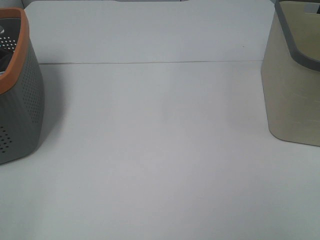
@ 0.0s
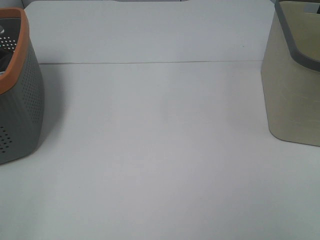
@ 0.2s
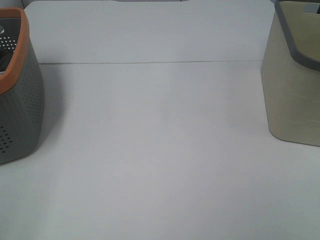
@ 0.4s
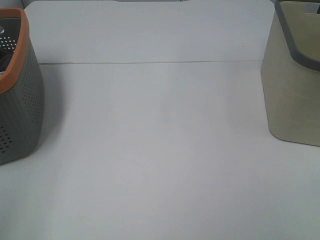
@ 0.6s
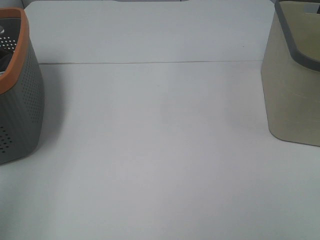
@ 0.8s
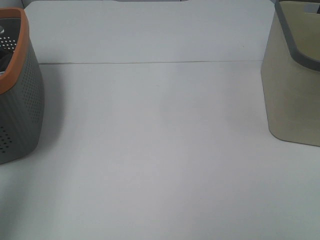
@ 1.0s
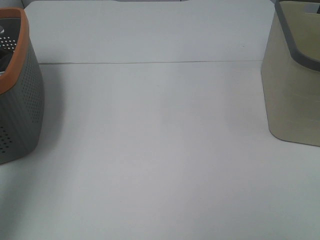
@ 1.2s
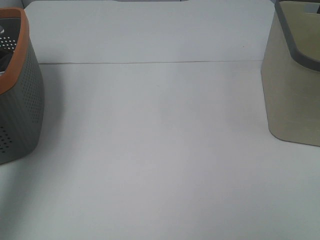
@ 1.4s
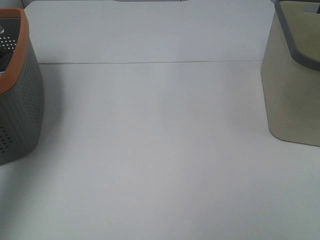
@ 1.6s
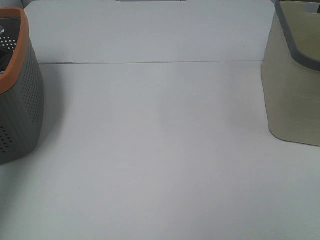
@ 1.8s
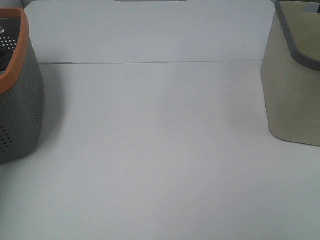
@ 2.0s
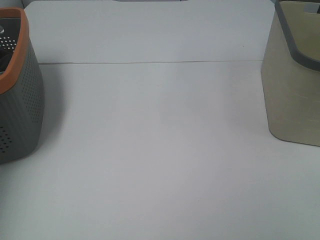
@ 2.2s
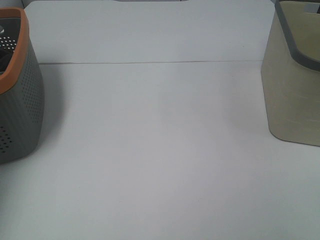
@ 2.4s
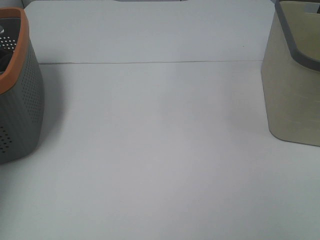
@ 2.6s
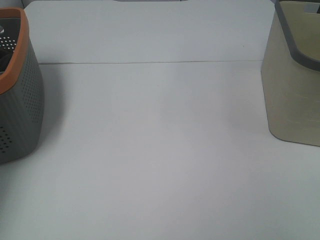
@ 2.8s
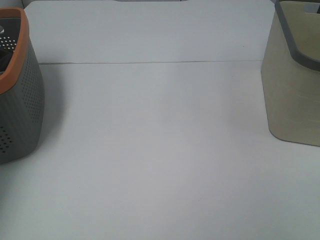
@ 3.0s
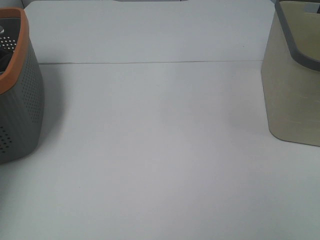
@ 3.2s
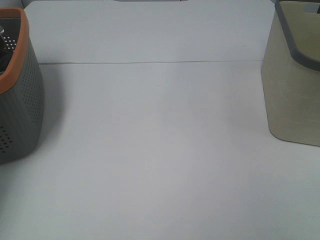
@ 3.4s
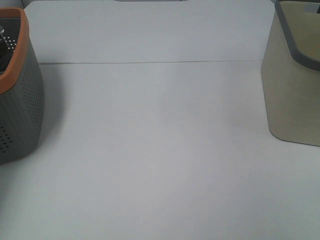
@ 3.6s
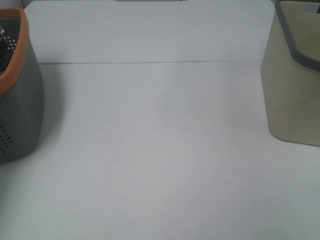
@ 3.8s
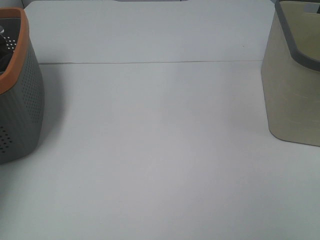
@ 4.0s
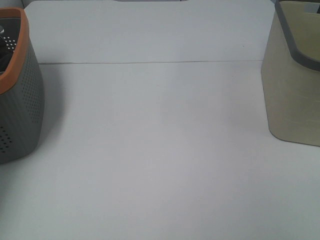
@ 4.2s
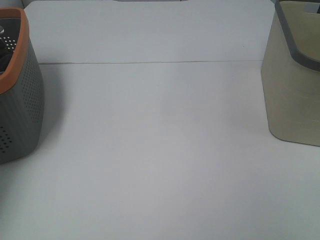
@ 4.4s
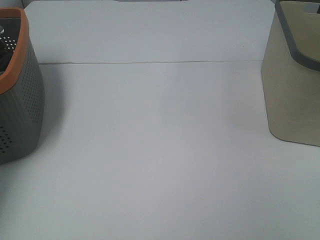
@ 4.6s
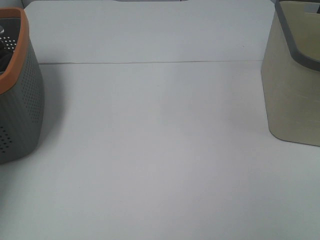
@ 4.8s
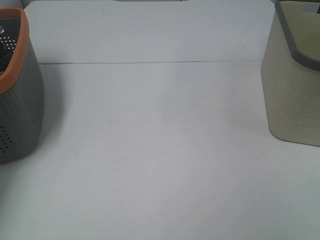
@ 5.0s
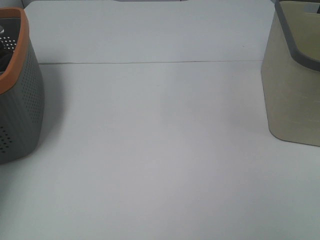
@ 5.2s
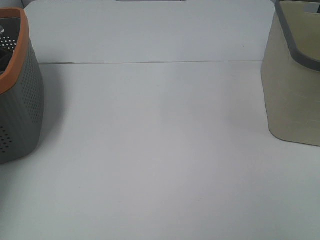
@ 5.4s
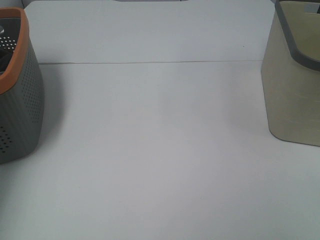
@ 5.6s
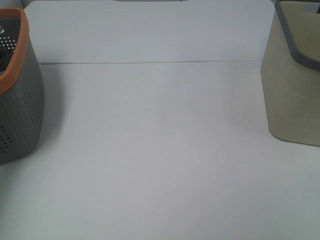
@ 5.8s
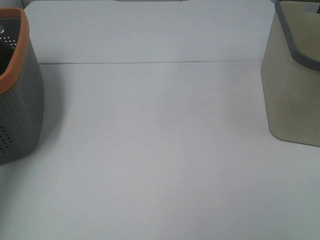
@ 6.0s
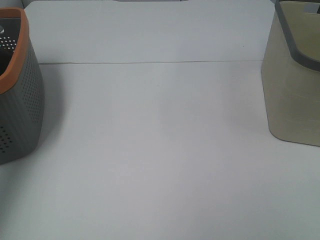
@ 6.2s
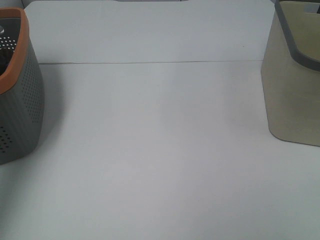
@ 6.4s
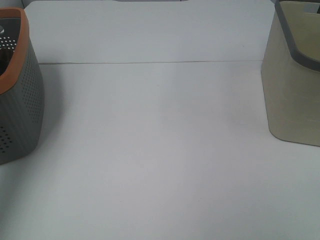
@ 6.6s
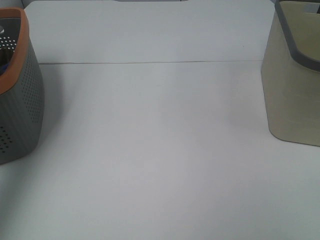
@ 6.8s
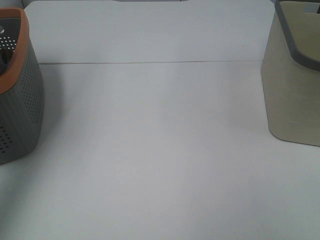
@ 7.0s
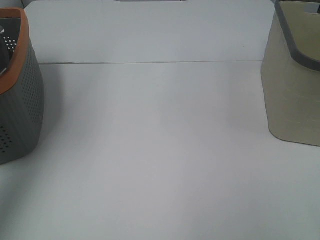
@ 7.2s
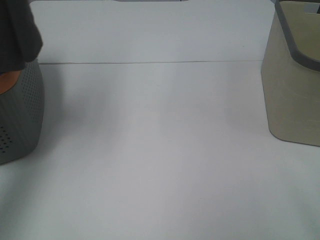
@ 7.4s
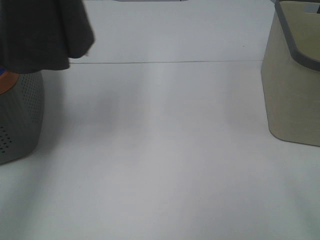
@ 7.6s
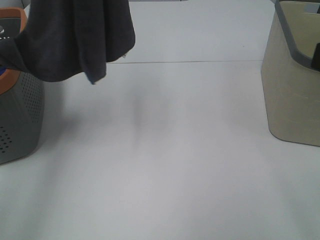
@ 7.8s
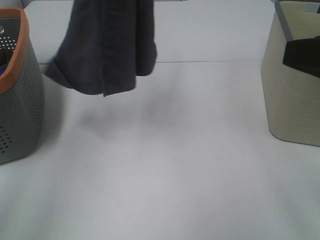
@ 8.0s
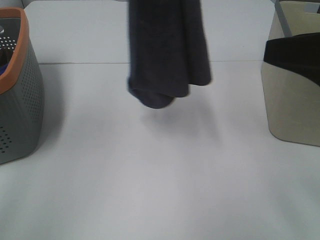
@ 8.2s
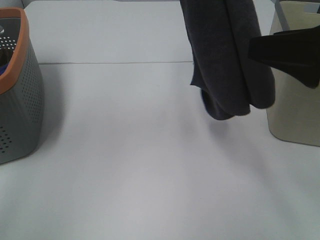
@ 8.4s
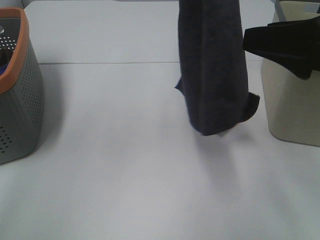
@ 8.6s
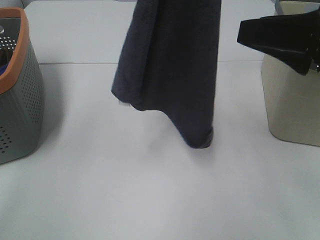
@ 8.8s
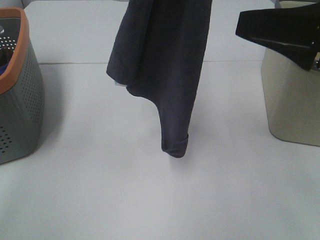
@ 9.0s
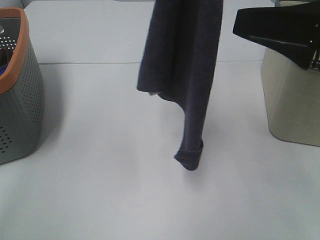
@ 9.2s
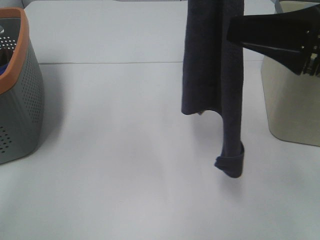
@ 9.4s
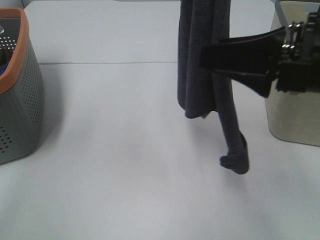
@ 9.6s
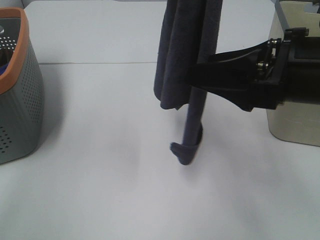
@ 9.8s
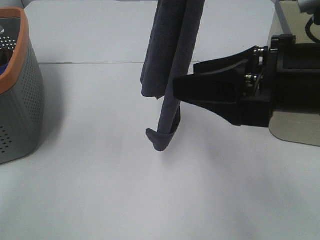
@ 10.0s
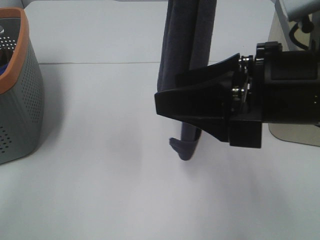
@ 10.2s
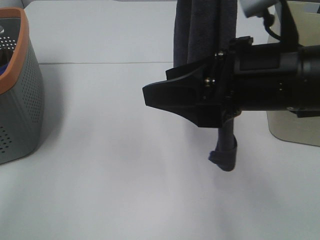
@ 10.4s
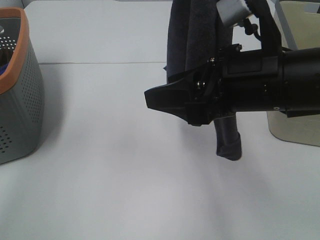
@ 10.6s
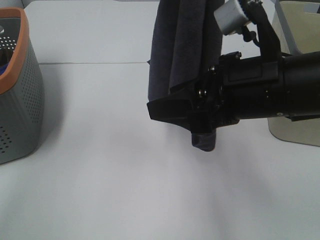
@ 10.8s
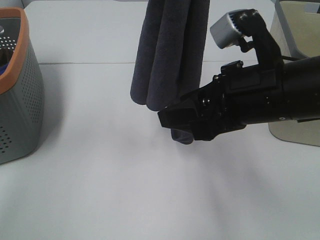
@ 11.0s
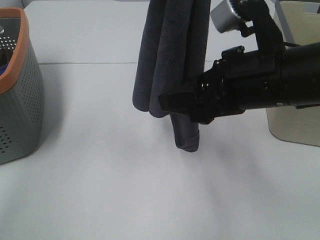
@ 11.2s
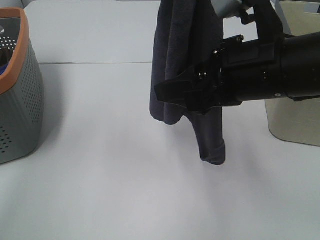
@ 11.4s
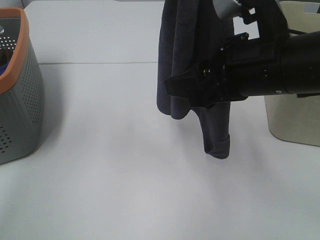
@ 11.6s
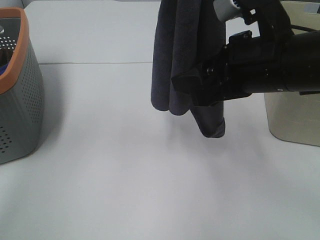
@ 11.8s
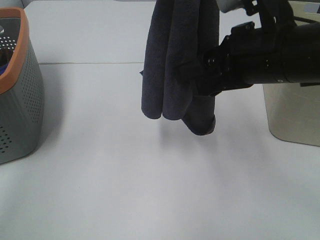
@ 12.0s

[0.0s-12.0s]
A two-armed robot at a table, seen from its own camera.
Task of the whole recording: Remove the towel and place it.
0.0s to 1.6s: The left gripper heads forward and upward, covering about 30 cm.
1.6s to 3.0s: The left gripper travels downward and forward by some 25 cm.
6.0s to 7.6s: The left gripper shifts approximately 25 cm upward and to the right, while the right gripper goes some 10 cm forward.
7.6s to 9.0s: The right gripper moves forward, approximately 10 cm; the left gripper heads to the right, covering some 15 cm.
9.0s to 10.4s: The right gripper travels to the left by about 10 cm.

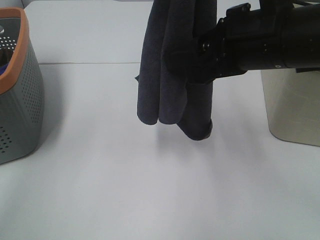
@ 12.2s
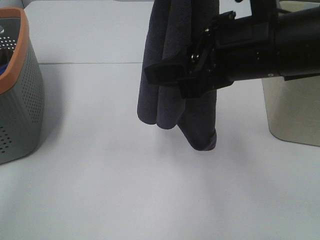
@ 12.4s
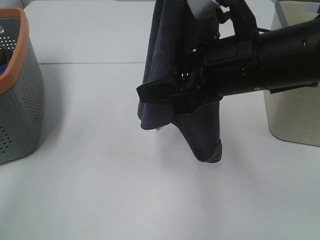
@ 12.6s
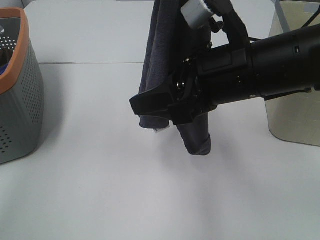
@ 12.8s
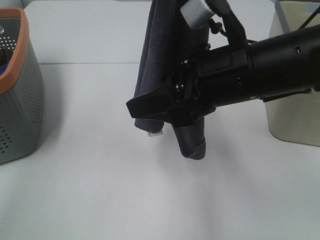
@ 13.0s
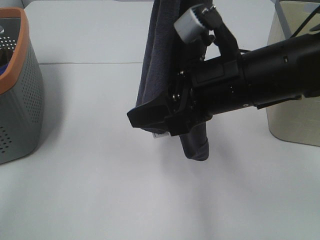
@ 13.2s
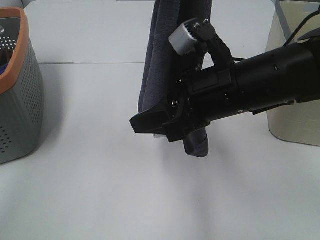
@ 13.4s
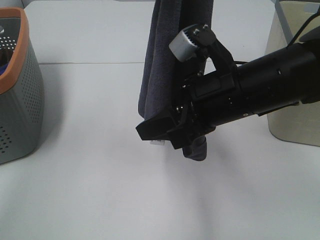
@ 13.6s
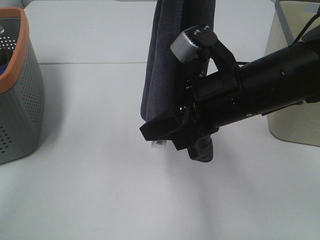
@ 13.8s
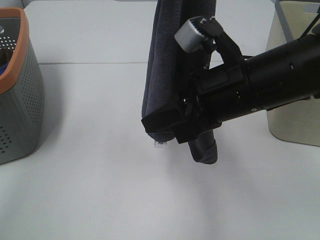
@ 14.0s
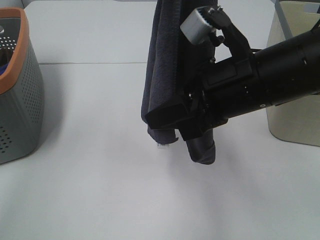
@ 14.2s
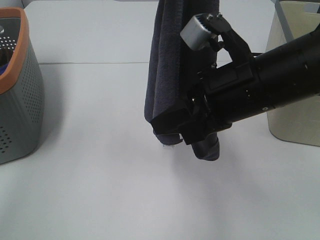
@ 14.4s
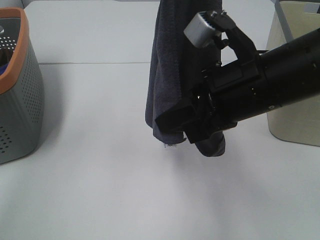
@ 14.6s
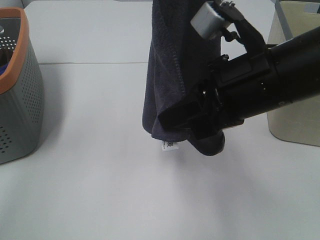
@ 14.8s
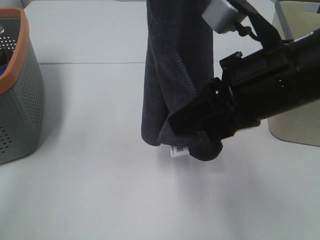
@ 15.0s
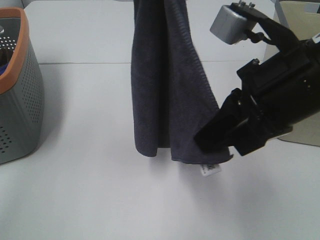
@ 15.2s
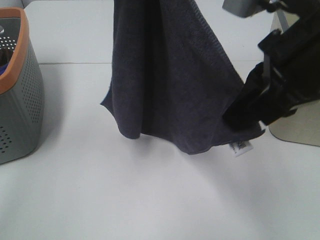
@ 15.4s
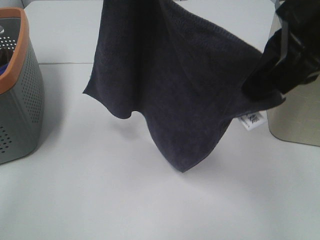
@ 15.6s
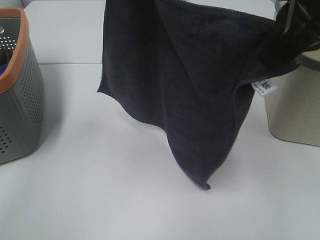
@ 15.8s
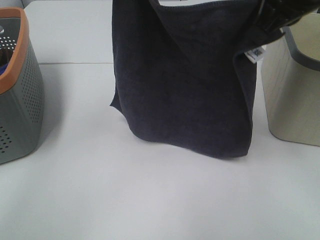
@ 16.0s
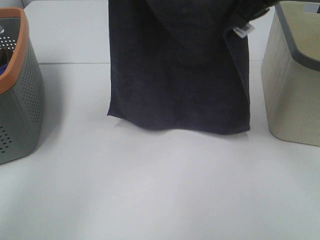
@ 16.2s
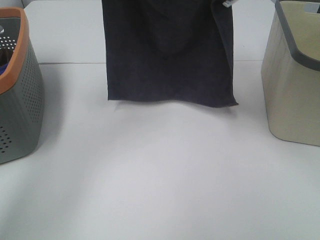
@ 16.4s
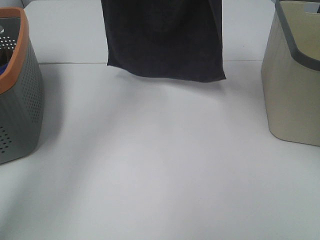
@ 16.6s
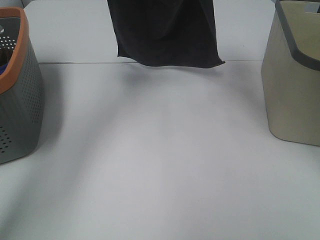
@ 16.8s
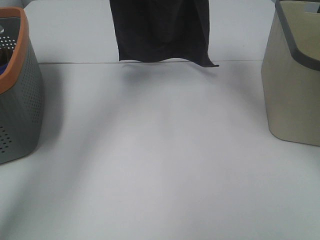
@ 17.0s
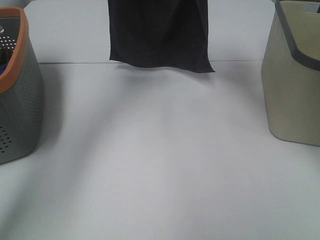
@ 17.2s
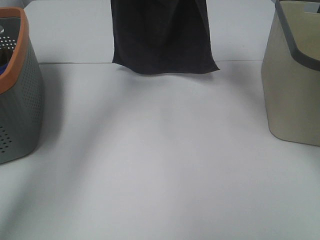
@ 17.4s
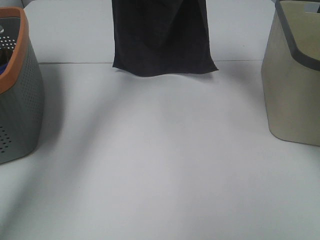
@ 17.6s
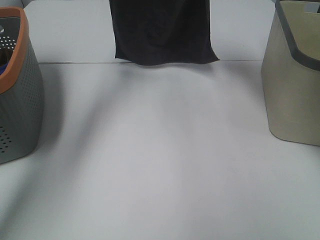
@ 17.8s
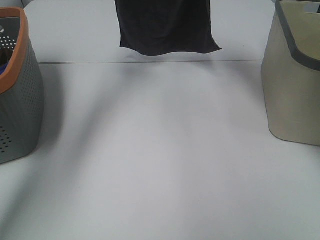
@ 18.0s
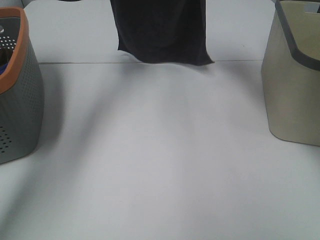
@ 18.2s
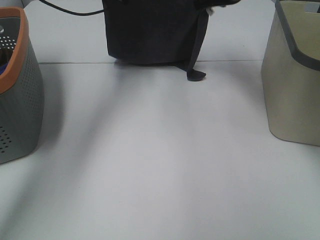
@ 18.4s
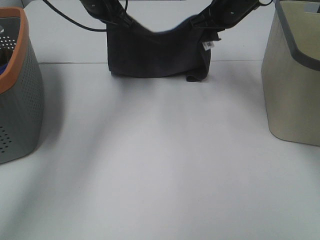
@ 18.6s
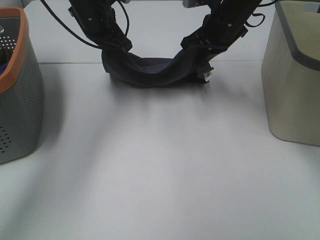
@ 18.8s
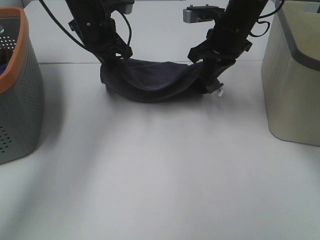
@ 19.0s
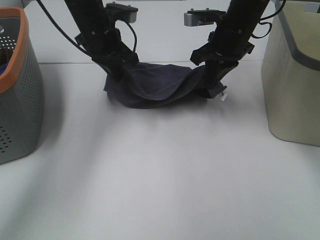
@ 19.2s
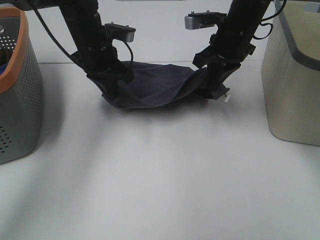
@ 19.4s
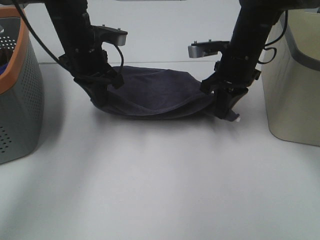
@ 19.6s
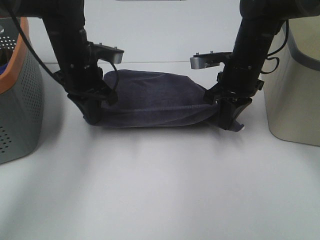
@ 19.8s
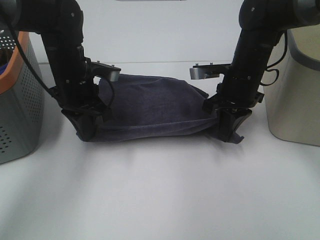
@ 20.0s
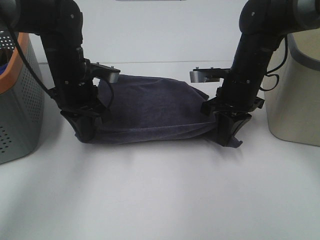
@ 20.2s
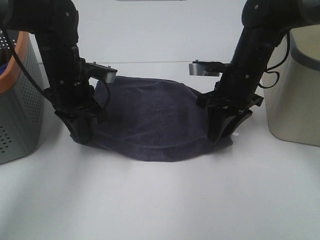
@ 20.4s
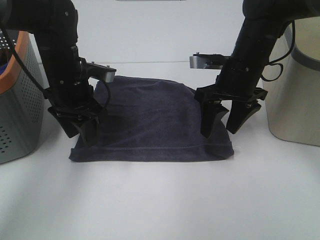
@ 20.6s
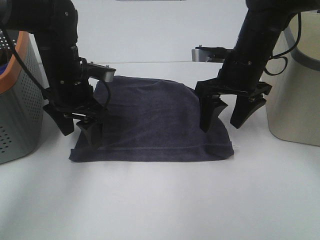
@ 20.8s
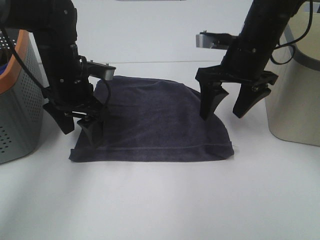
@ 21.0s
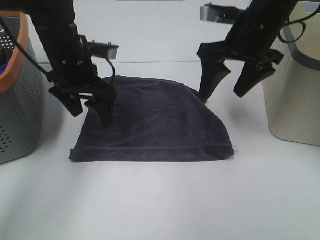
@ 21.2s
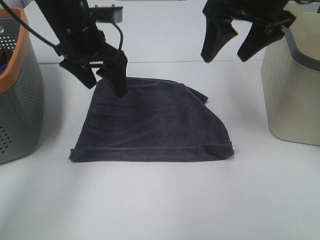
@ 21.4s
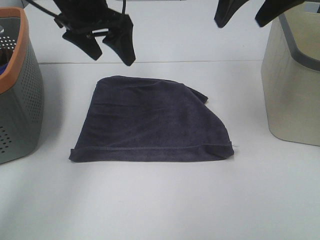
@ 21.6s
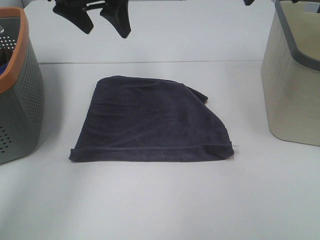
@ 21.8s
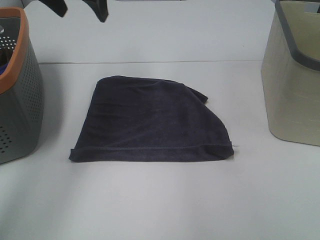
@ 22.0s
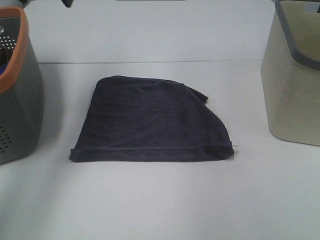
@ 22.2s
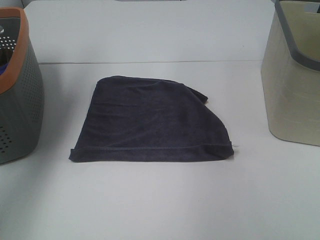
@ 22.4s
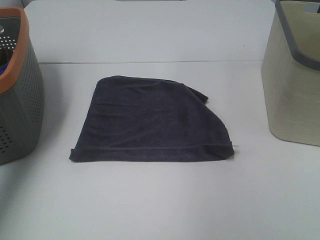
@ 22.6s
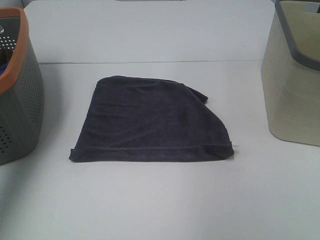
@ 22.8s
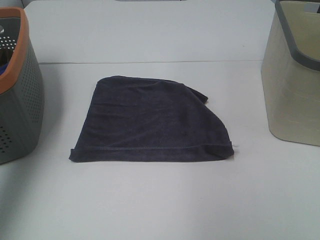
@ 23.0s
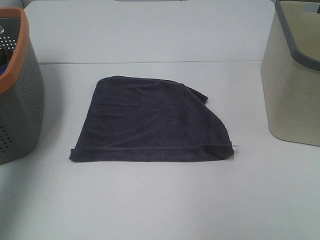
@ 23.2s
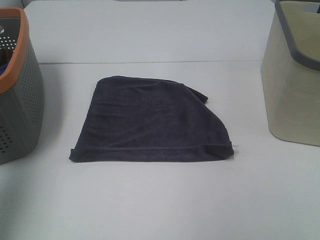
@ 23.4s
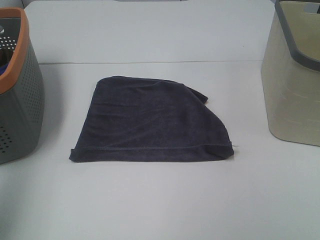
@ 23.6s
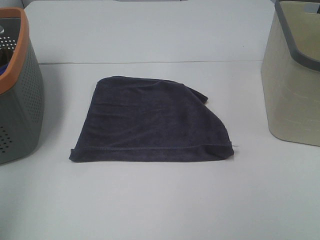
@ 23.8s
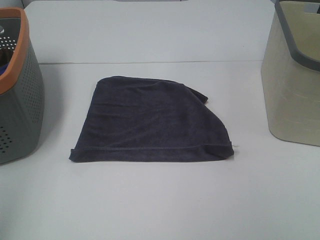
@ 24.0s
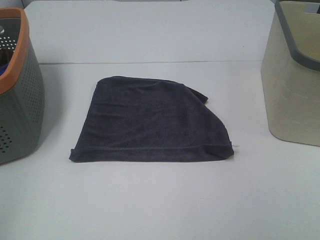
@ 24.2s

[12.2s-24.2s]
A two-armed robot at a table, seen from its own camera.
Task of the whole recording: Remove the towel and place it.
Step, 13.8s to 15.6s: Right hand: spread the grey towel flat on the table.
Step, 13.8s to 15.8s: Left hand: spread the grey towel flat on the table.
12.2s to 13.8s: The right gripper is displaced downward by some 5 cm.
13.8s to 15.2s: The right gripper travels upward by roughly 5 cm, and closes up.
15.2s to 16.6s: The left gripper shifts some 20 cm forward and downward. The right gripper travels forward by approximately 25 cm.
16.6s to 18.2s: The right gripper shifts approximately 10 cm forward and downward. Meanwhile the left gripper shifts roughly 10 cm downward and forward.
18.2s to 19.8s: The left gripper moves backward and downward, approximately 20 cm, while the right gripper goes about 20 cm downward and backward.
19.8s to 21.2s: The right gripper heads upward, covering approximately 10 cm, and opens up, while the left gripper opens up.
21.2s to 22.6s: The left gripper heads upward and to the left, covering approximately 30 cm; the right gripper moves to the right and upward, roughly 20 cm.
22.6s to 24.2s: The left gripper shifts about 35 cm backward.
